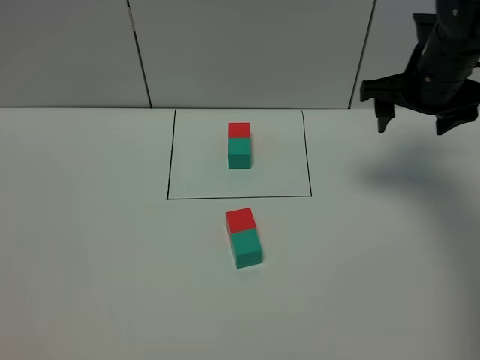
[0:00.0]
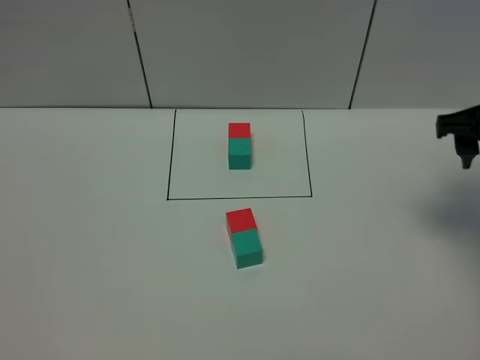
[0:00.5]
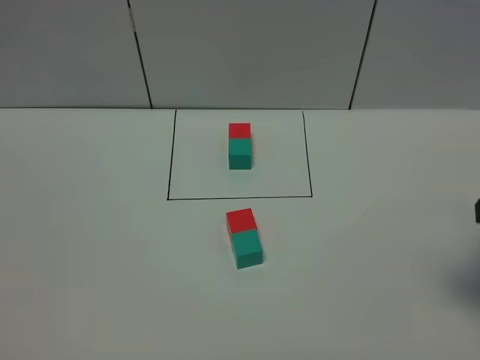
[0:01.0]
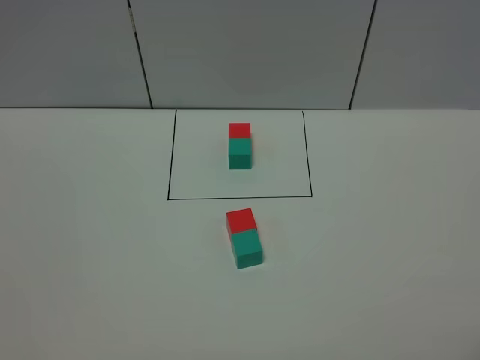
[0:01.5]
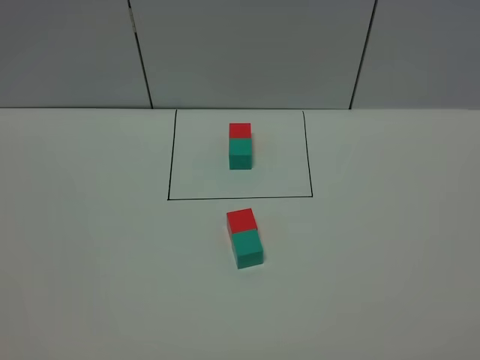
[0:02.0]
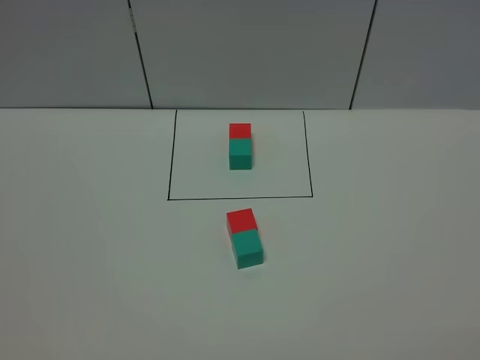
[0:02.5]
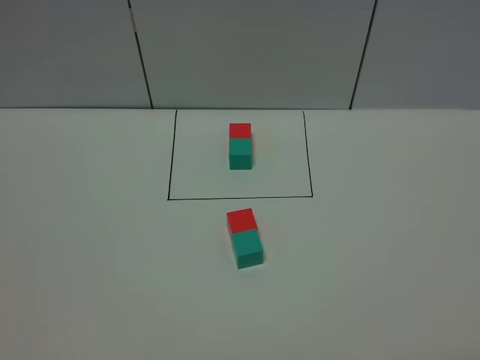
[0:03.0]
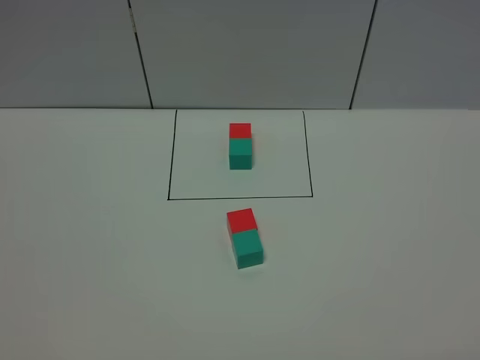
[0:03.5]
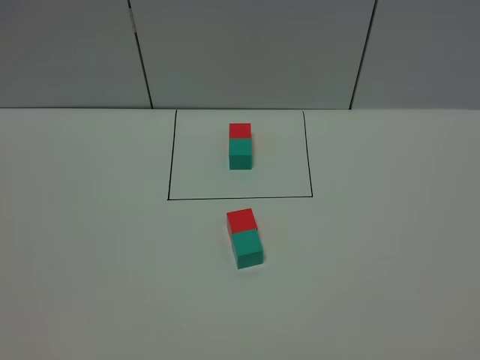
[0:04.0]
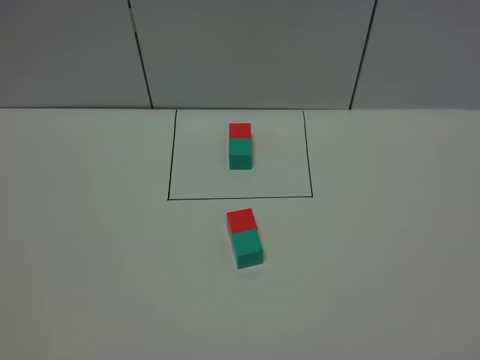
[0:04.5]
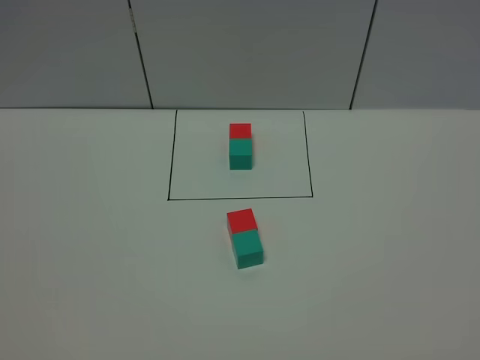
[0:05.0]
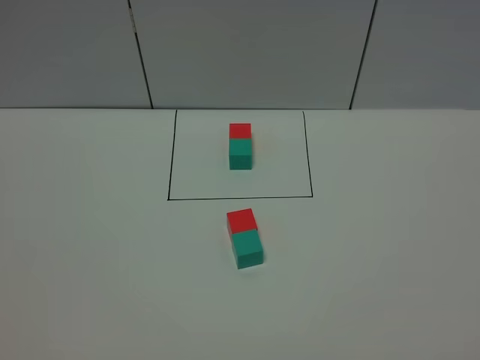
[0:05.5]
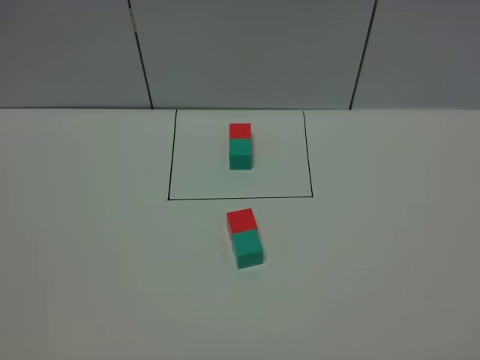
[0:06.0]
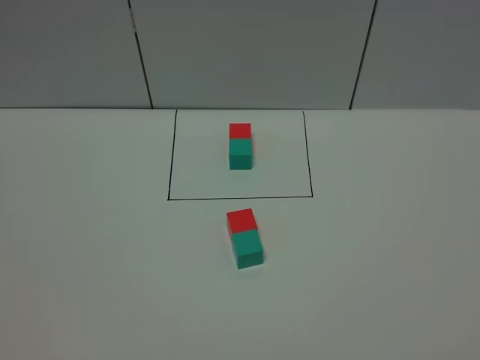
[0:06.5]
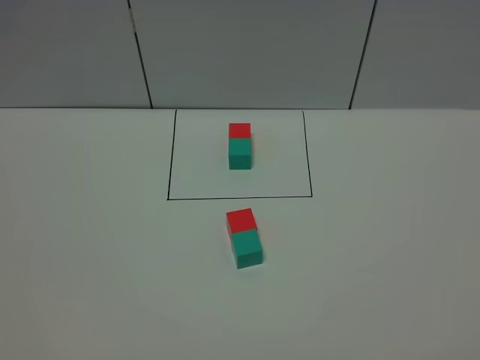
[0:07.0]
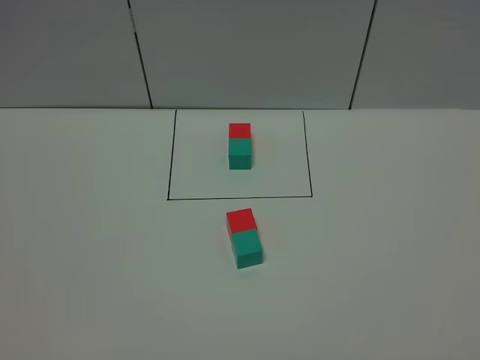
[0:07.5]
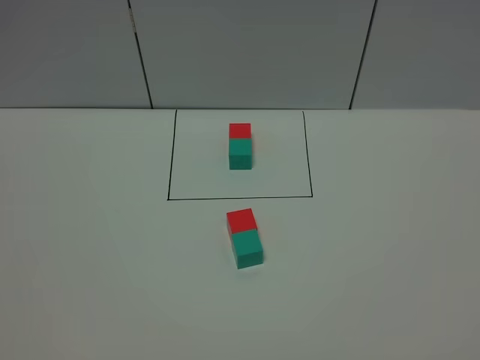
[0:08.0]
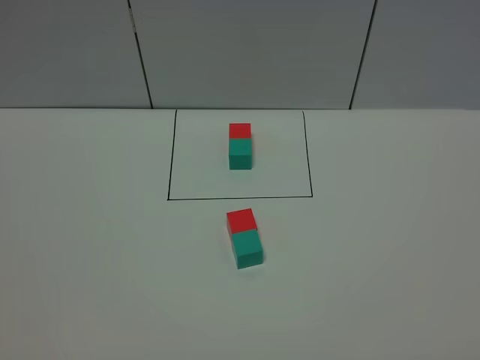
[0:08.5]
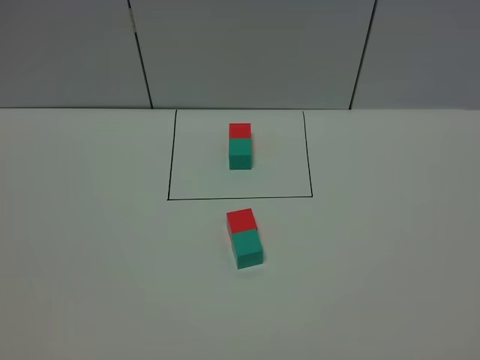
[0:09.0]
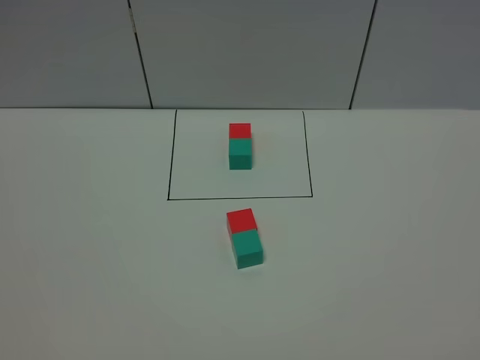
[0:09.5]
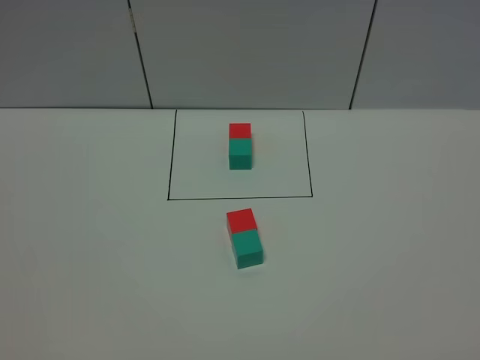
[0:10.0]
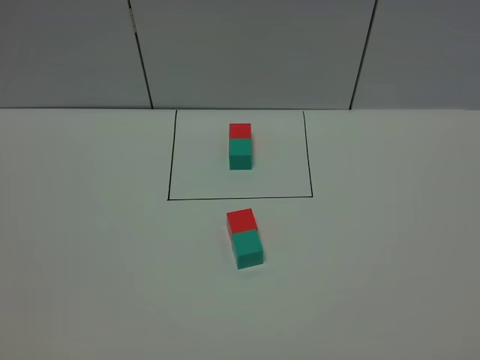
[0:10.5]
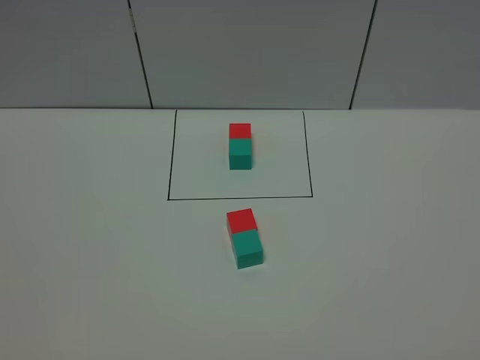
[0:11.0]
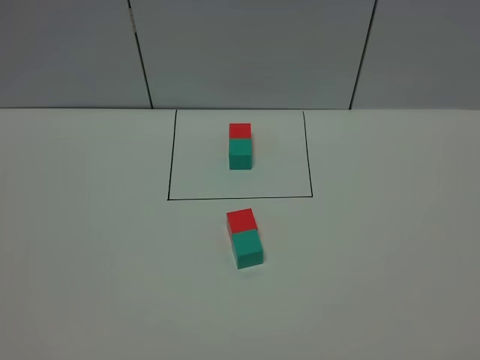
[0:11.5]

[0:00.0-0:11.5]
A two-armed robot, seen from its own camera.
Task of the whole recording: According to the building block template in front, assemble the scattered blocks together.
0:00.0 to 0:02.0: The right gripper moves backward, some 40 cm.
0:07.5 to 0:11.5: Both grippers stay put.

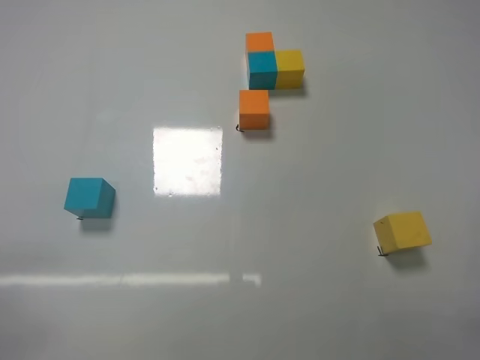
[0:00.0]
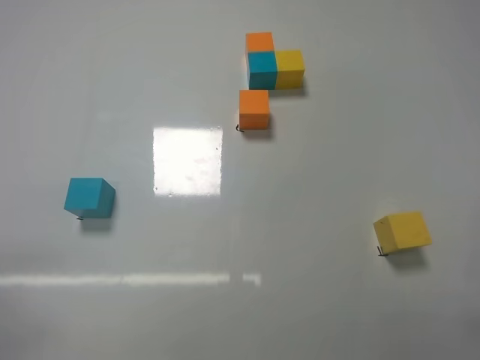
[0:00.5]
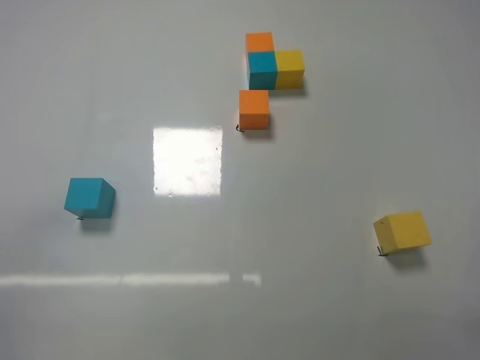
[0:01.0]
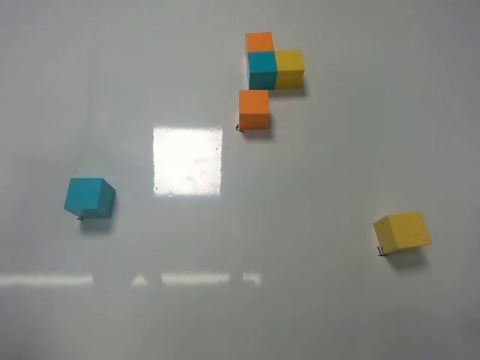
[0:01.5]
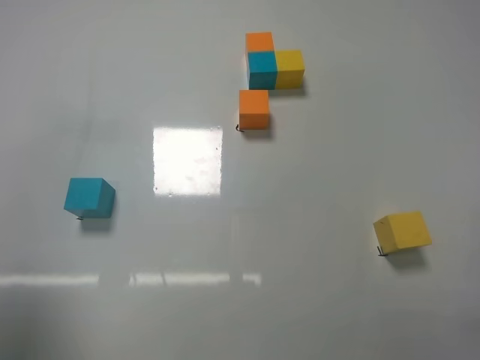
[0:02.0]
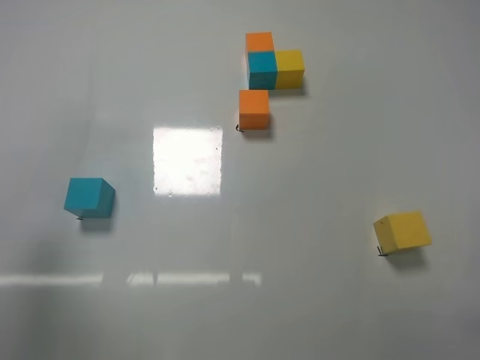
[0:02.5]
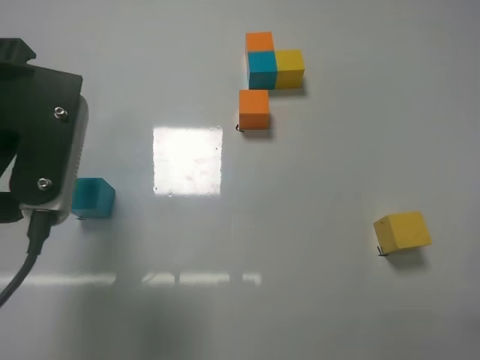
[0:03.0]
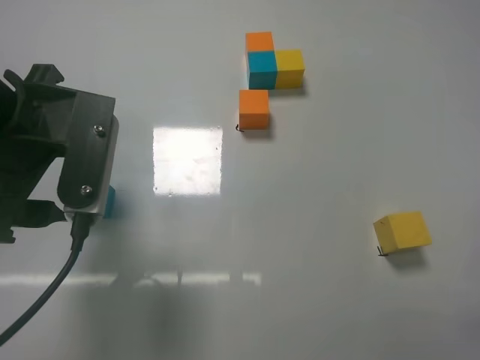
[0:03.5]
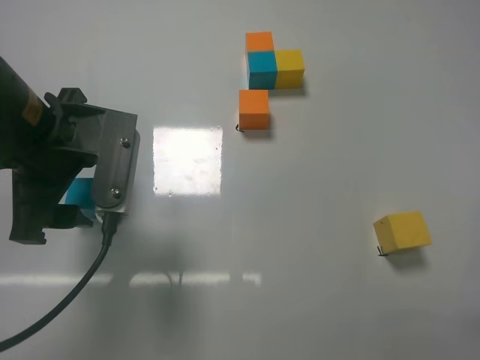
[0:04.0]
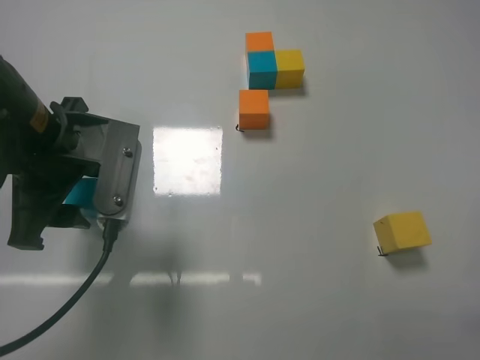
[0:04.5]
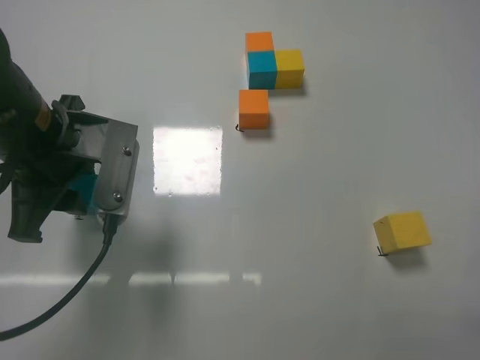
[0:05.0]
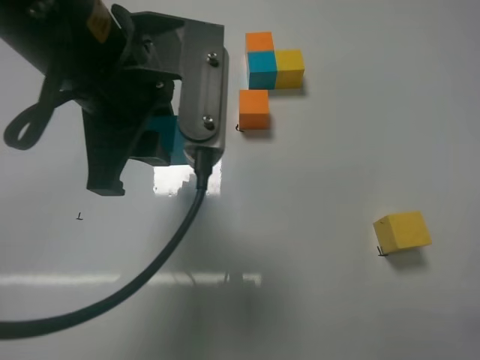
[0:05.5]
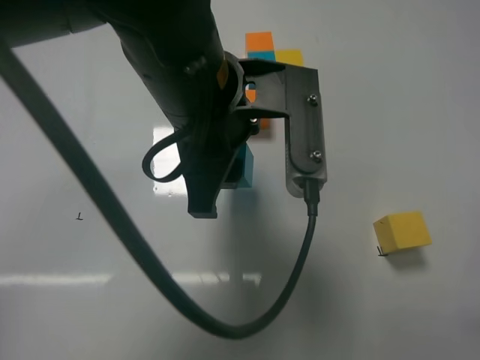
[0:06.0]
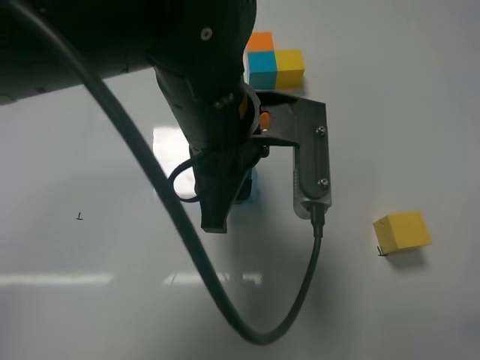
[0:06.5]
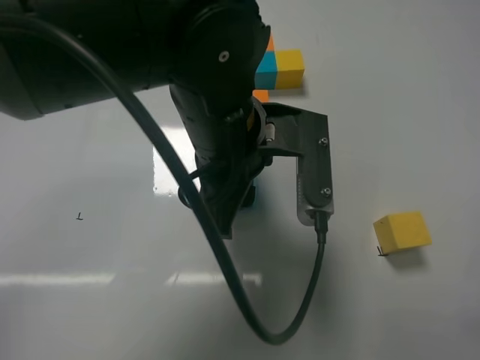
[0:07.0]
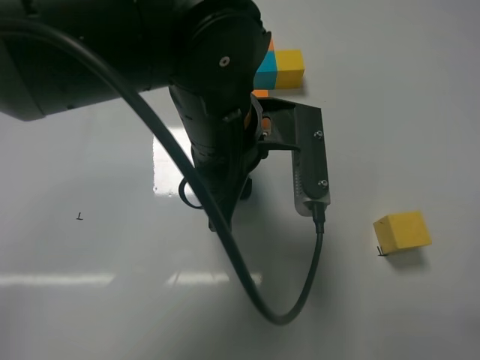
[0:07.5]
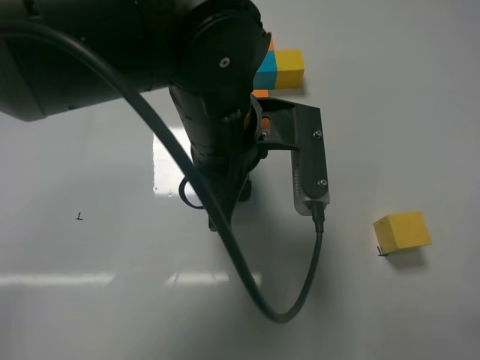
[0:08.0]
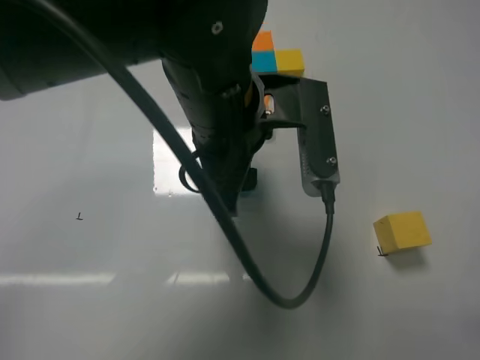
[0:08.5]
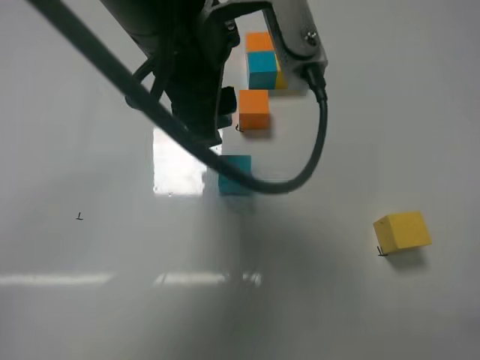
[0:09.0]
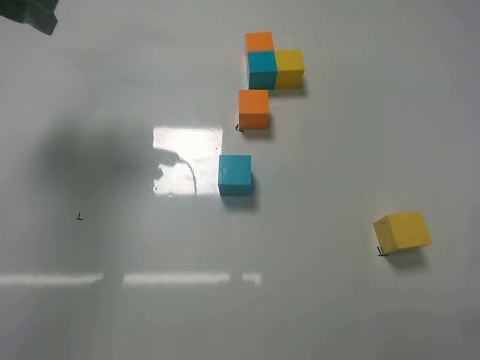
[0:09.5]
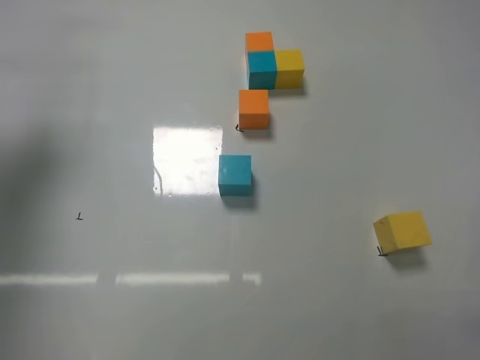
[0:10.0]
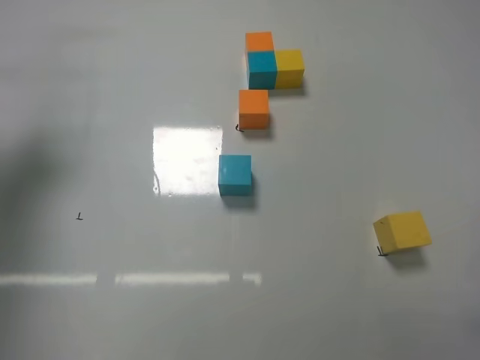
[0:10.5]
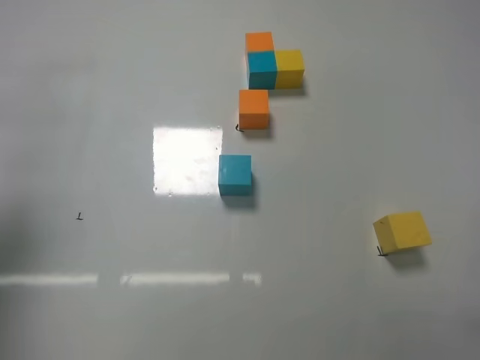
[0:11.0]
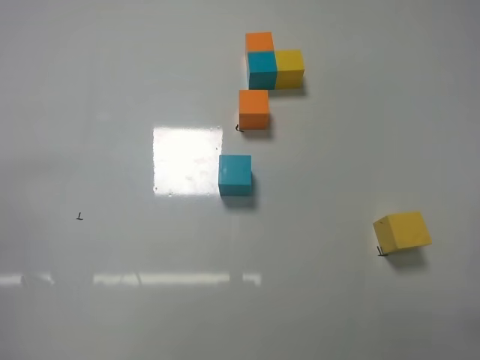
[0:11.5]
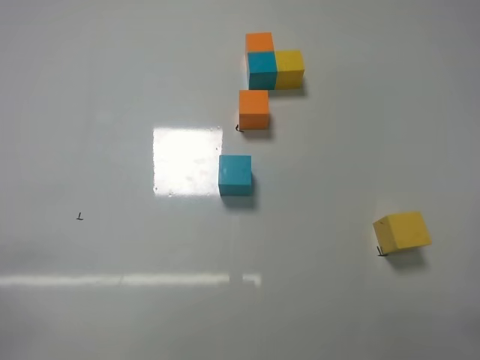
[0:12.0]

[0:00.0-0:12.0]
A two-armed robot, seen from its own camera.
Task of the whole recording: According to the building block template in front, assemble the scattered blocks together.
Step, 0:00.0 to 0:04.5: Grasp the blue block with left gripper.
Step, 0:05.0 to 0:08.5: Adjust the position of the cube with the left gripper.
0:00.0 to 0:02.0: The left gripper heads upward and forward, covering about 20 cm.
0:02.0 to 0:04.0: The left gripper travels forward, to the right and downward by roughly 20 cm, and opens.
0:04.0 to 0:06.0: The left gripper goes roughly 15 cm to the right, and closes.
0:08.0 to 0:10.0: The left gripper is displaced to the left and upward by about 35 cm.
0:10.0 to 0:12.0: The left gripper goes about 35 cm backward and downward.

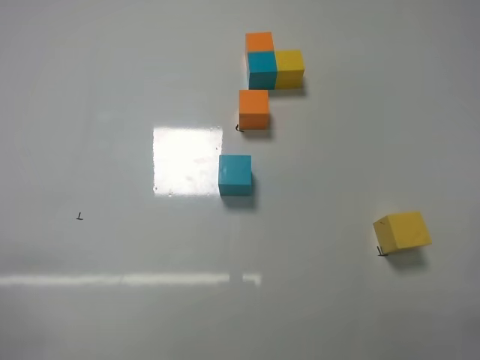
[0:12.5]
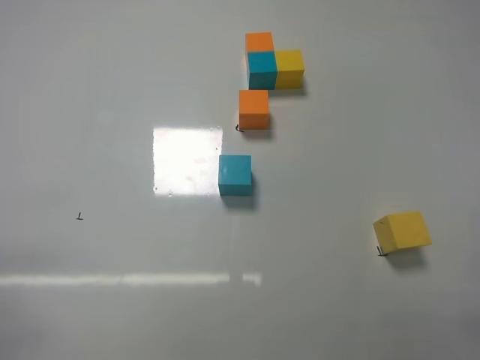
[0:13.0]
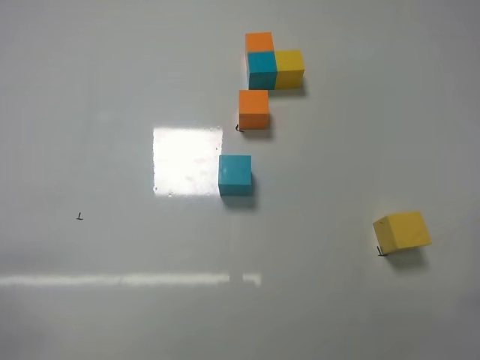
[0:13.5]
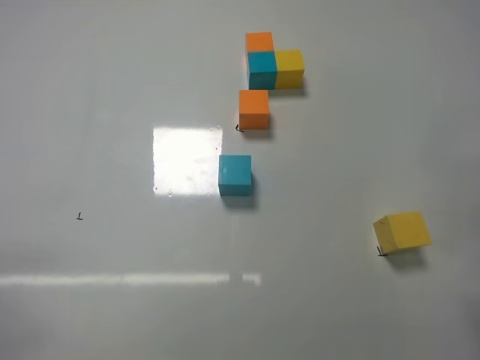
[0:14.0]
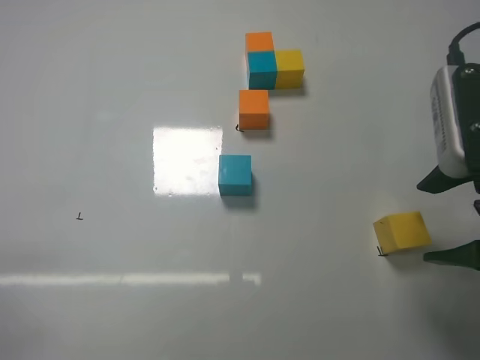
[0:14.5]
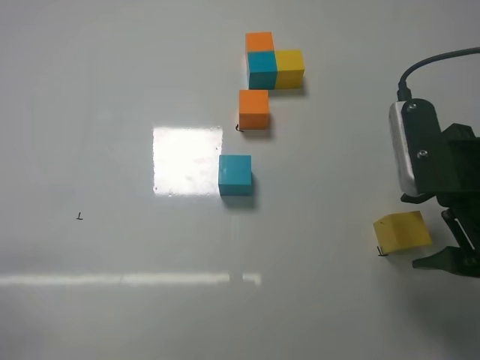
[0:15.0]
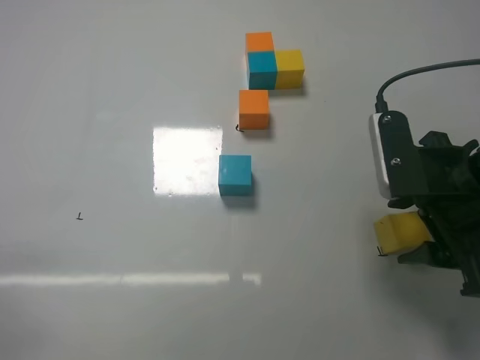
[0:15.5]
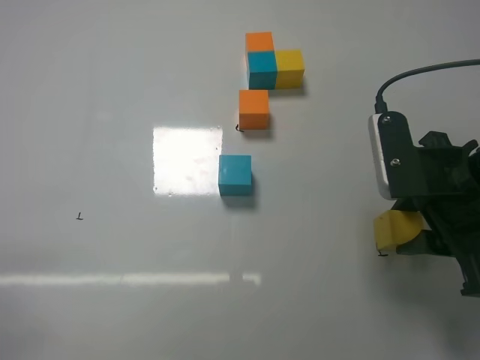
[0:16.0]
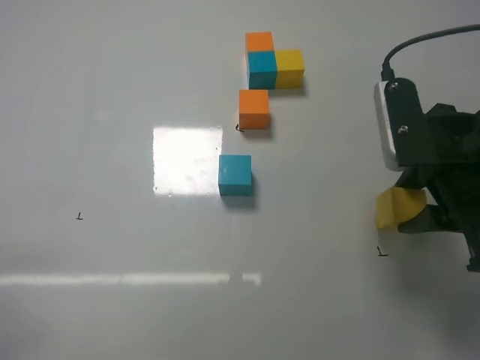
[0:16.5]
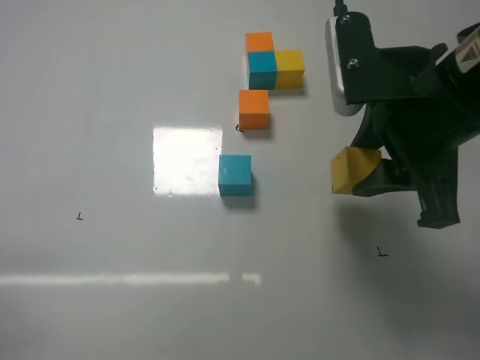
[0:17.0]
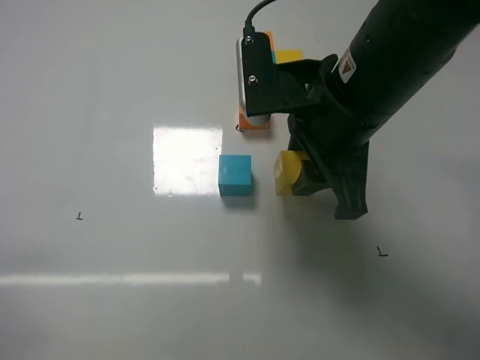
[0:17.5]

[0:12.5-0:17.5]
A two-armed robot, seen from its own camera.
Task of the whole recording: According to the building block template in front, assemble the scattered blocks together.
Step, 0:12.5 to 0:15.5: Grasp the yellow block with right gripper.
0:12.5 to 0:15.0: The right gripper moves forward and to the left, roughly 20 cm, and opens up.
0:15.0 to 0:17.5: The right gripper travels to the left by roughly 15 cm, and closes its fingers.
